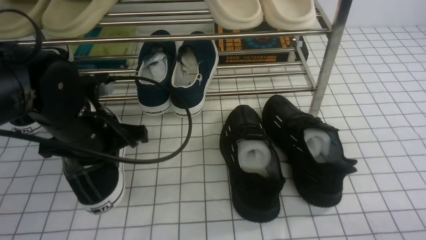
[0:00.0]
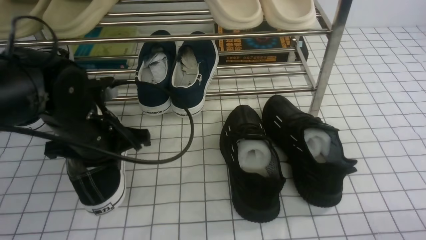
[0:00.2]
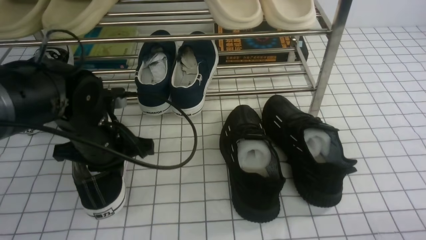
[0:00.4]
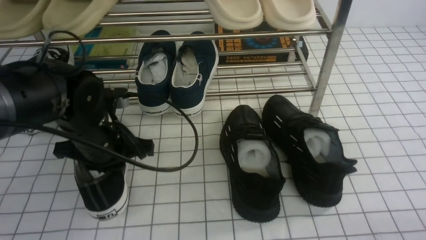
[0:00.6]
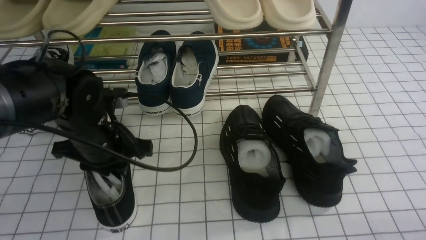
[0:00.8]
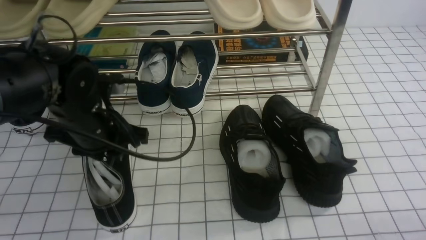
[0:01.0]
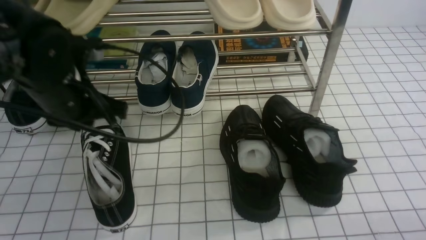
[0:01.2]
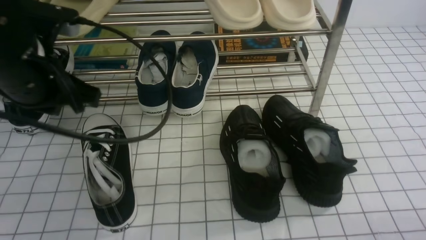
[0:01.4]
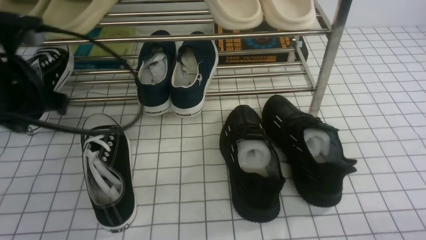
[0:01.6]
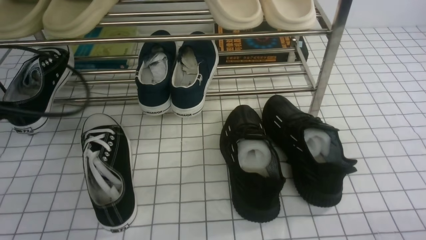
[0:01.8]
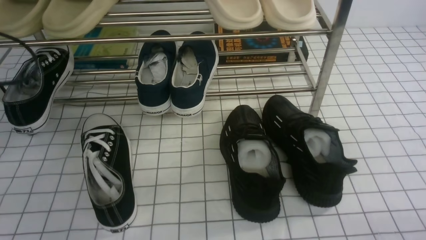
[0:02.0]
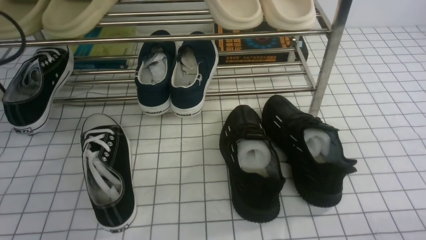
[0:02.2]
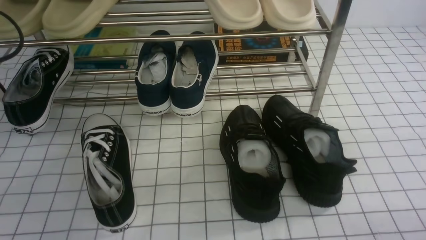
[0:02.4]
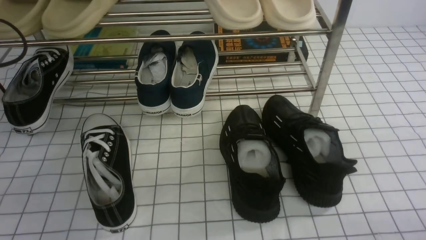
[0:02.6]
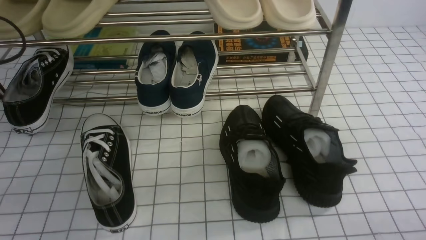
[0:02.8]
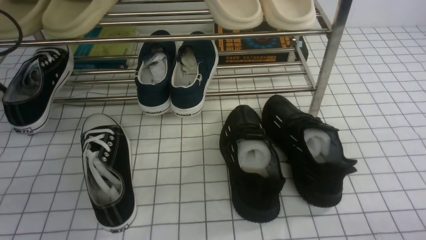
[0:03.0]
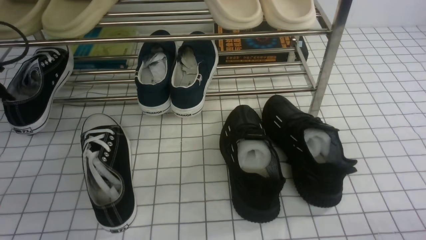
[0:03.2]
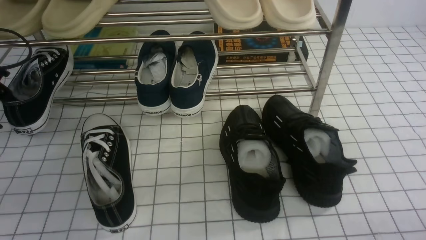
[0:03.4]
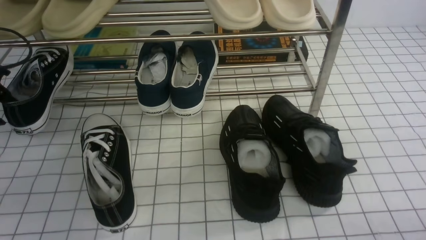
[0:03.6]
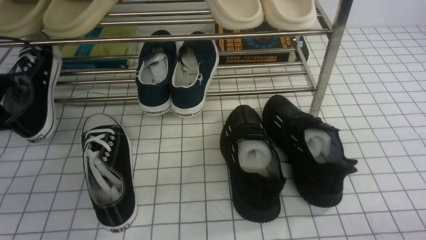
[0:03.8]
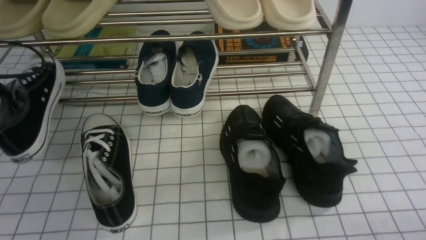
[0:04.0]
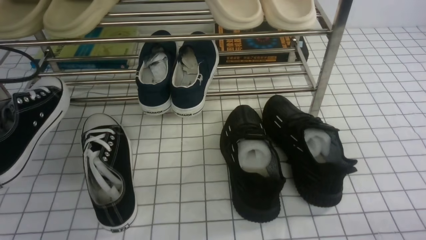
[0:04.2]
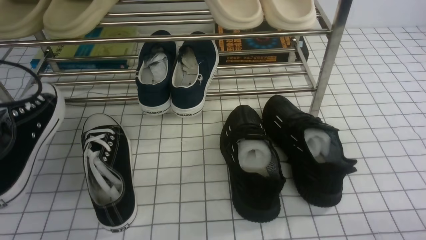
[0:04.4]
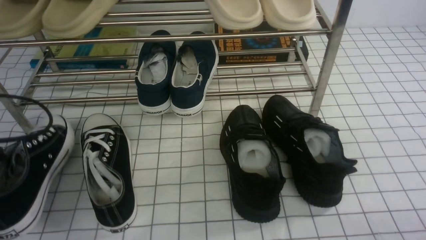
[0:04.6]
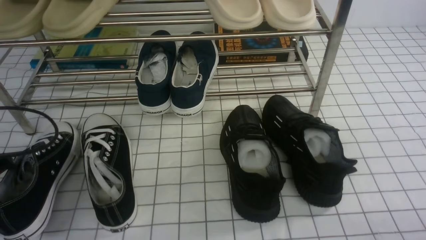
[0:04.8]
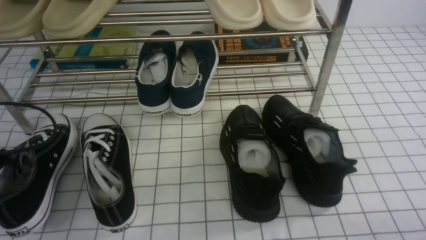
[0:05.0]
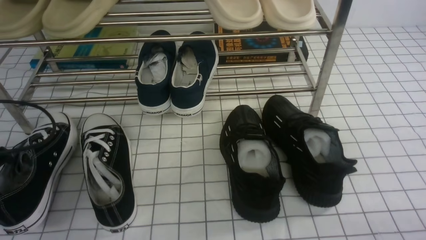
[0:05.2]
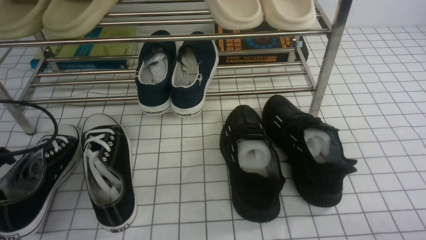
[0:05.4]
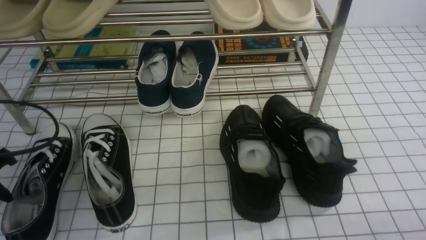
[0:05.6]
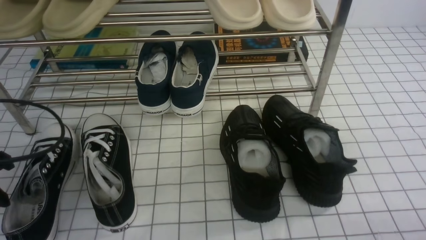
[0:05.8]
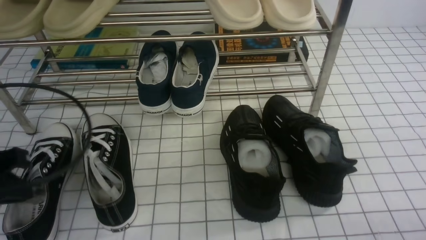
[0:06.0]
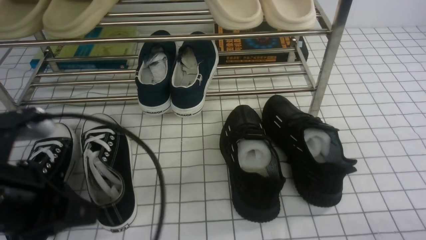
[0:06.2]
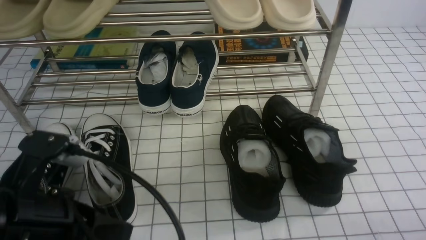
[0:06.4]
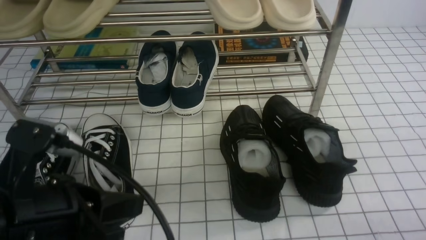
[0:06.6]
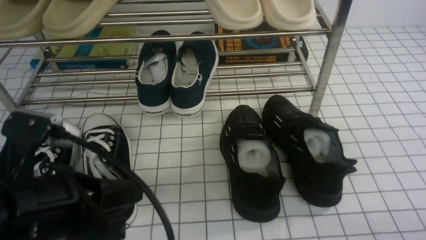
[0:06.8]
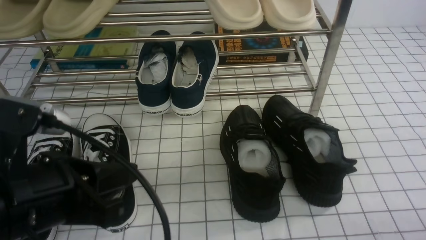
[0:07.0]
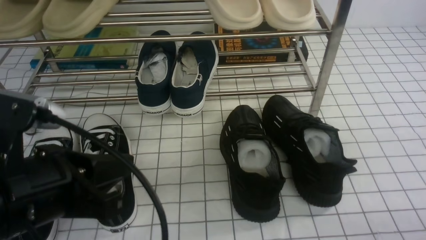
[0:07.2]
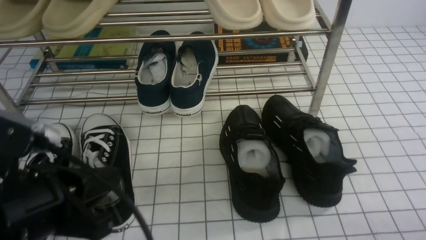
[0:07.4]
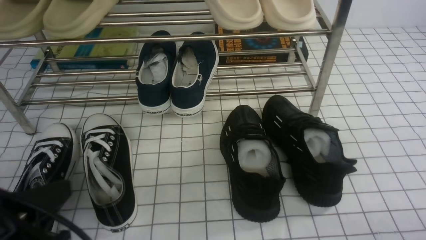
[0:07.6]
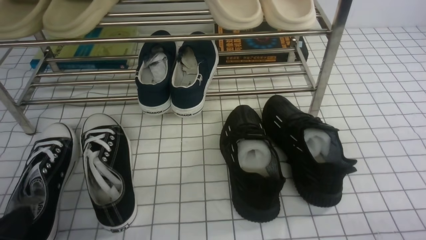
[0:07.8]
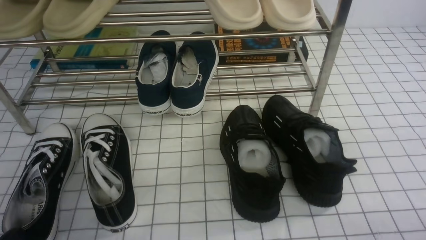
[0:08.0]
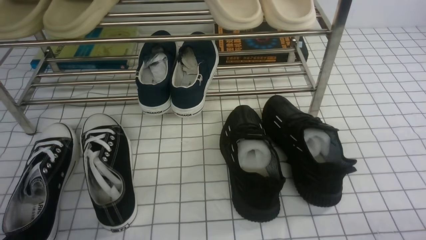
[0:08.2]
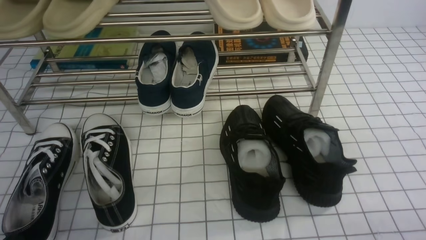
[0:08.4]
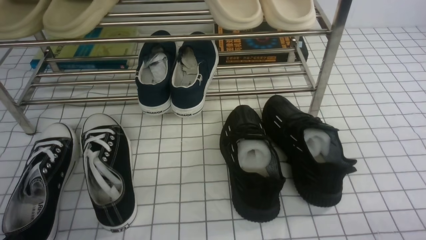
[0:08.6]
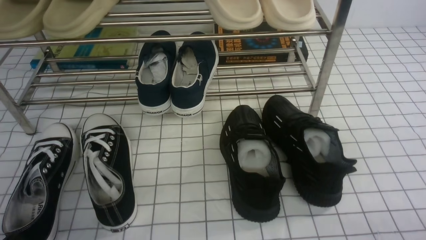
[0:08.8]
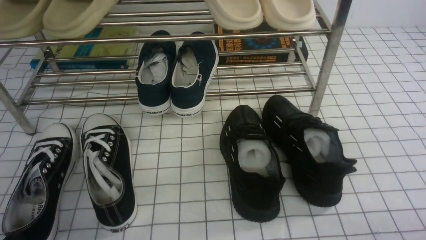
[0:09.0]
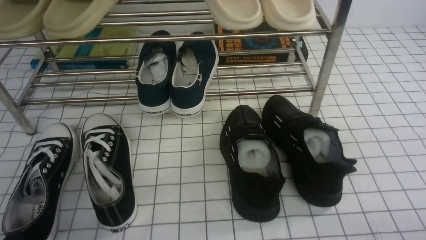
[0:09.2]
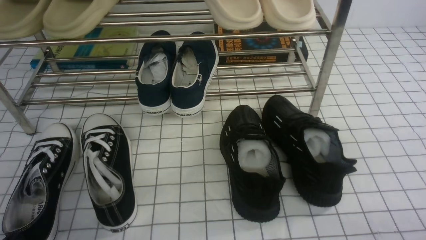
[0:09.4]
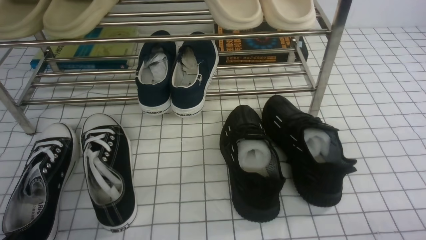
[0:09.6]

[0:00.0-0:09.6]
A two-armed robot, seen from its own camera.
Step, 0:01.2 to 0:03.6: use the left arm to clamp a shoe on the left side of the shoe rack.
Step, 0:03.8 to 0:05.8: Use your left arm to remove the clamped shoe from the shoe rack and put it down.
0:00.0 to 0:01.6: The left gripper moves upward and to the left, roughly 10 cm, and opens and closes again.
0:01.6 to 0:03.2: The left gripper travels to the left, downward and forward by some 20 cm, and opens.
0:03.2 to 0:04.8: The left gripper moves backward, about 15 cm, and closes.
0:04.8 to 0:06.4: The left gripper heads to the right and backward, covering approximately 15 cm, and opens, then closes again.
0:06.4 to 0:08.0: The left gripper is displaced downward, backward and to the left by roughly 15 cm.
